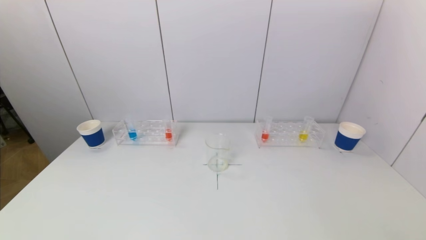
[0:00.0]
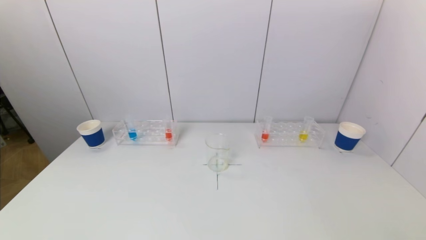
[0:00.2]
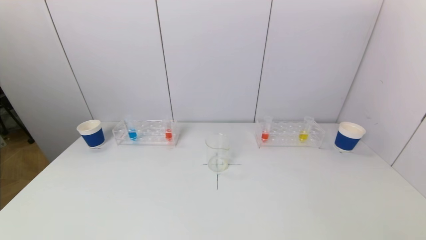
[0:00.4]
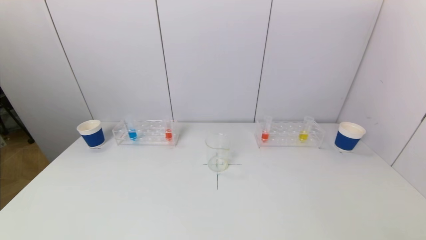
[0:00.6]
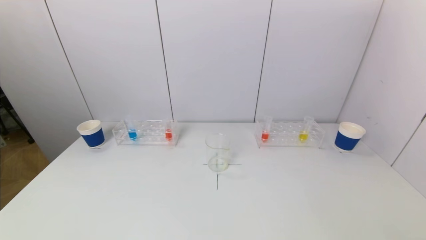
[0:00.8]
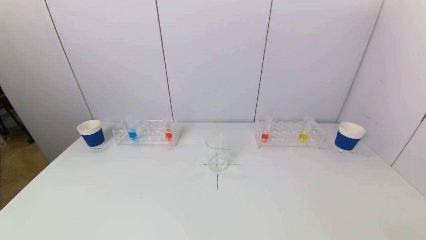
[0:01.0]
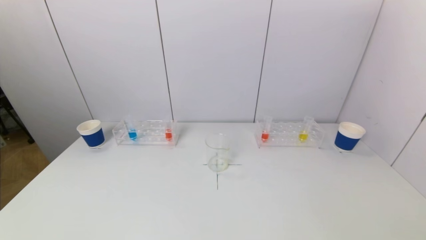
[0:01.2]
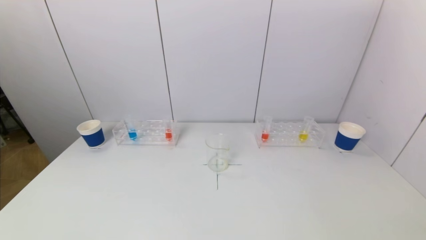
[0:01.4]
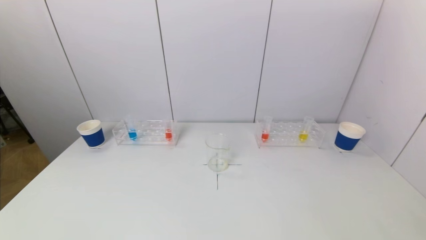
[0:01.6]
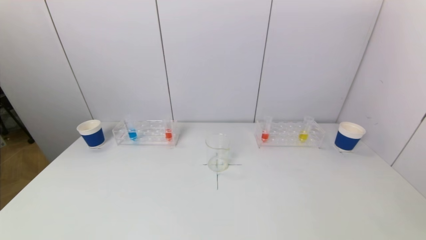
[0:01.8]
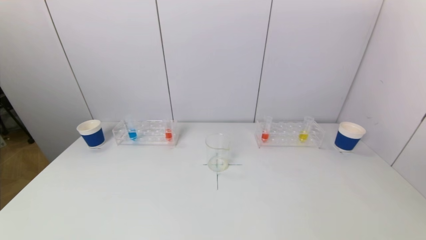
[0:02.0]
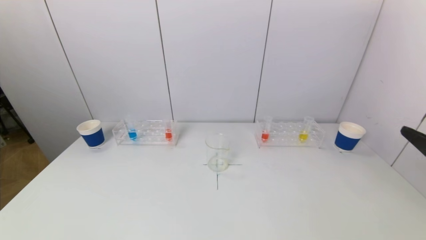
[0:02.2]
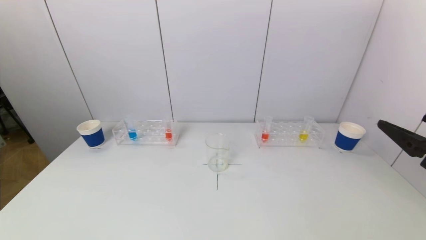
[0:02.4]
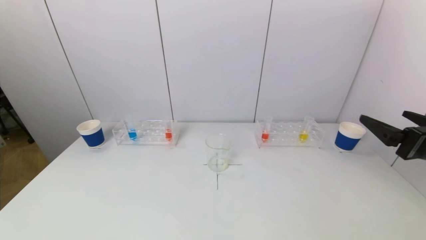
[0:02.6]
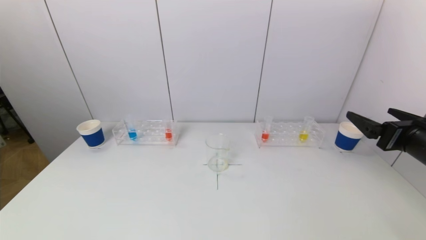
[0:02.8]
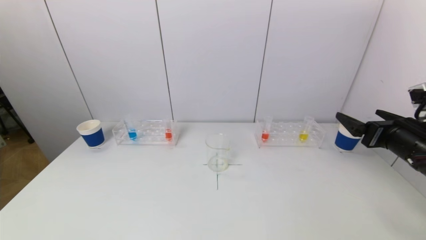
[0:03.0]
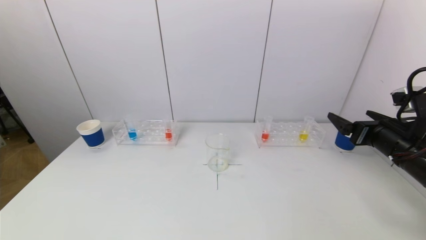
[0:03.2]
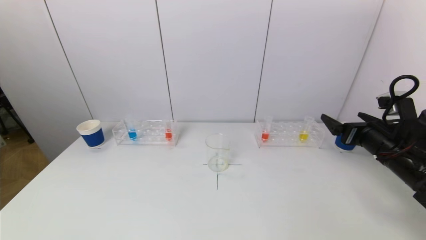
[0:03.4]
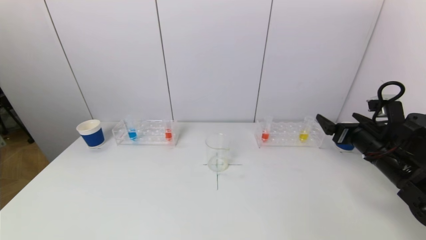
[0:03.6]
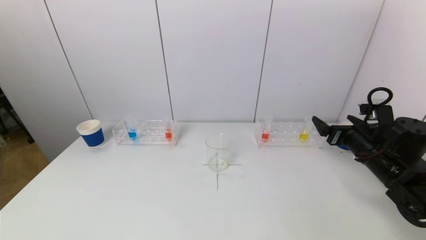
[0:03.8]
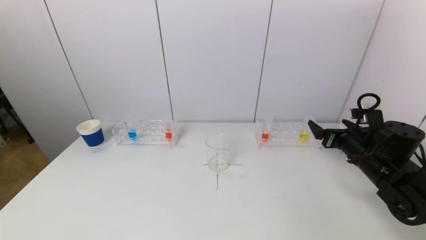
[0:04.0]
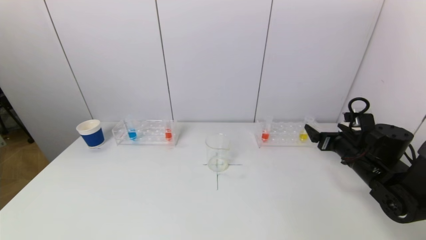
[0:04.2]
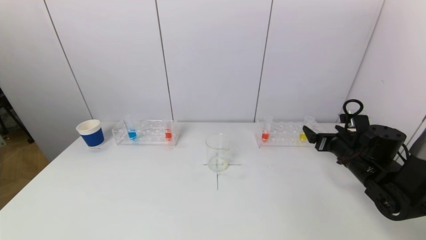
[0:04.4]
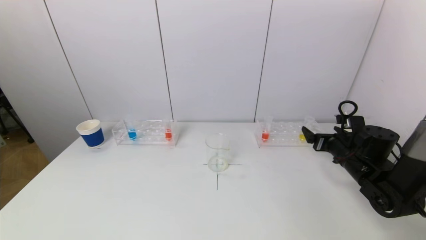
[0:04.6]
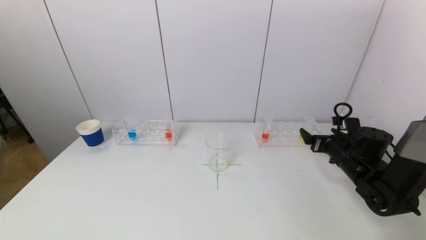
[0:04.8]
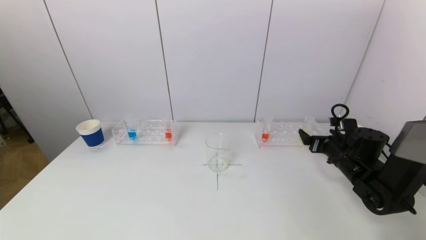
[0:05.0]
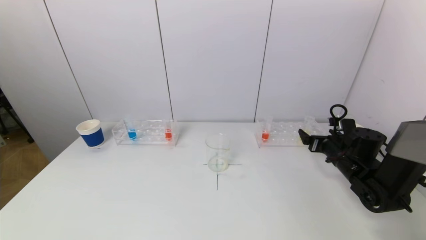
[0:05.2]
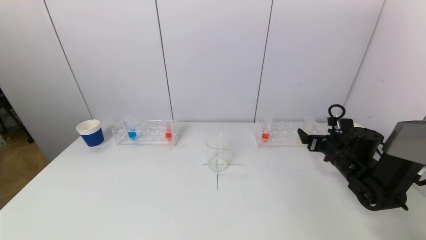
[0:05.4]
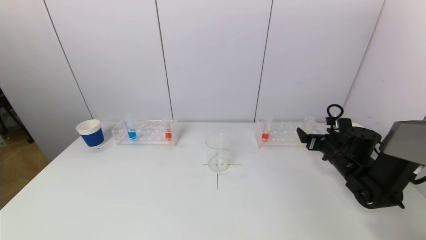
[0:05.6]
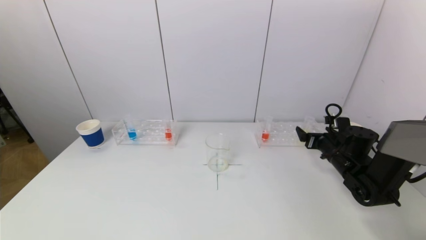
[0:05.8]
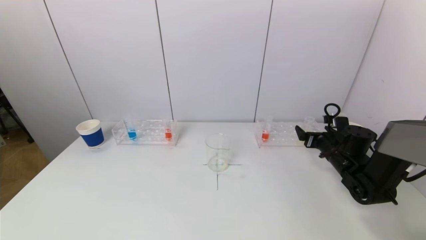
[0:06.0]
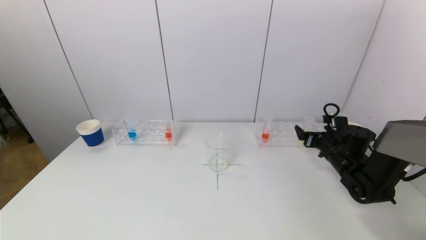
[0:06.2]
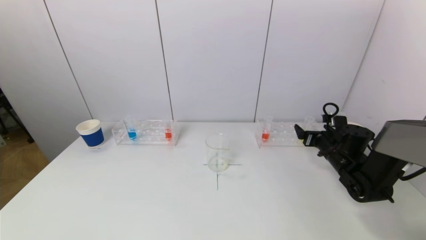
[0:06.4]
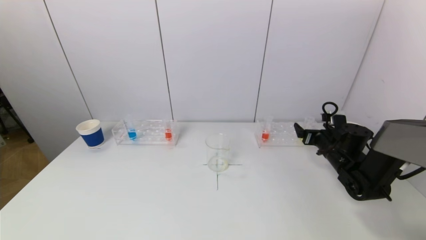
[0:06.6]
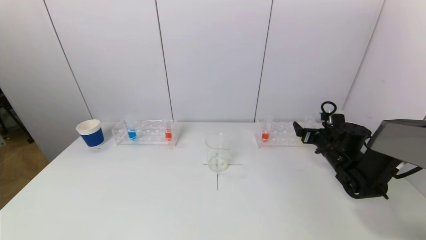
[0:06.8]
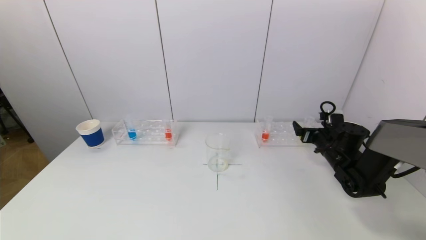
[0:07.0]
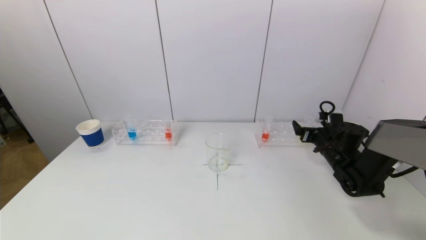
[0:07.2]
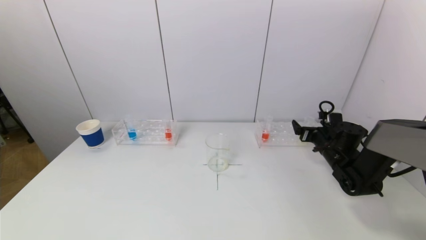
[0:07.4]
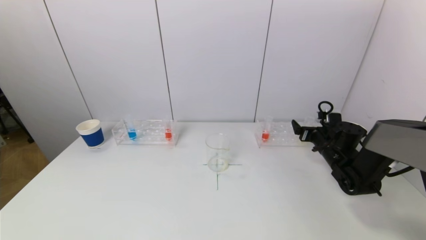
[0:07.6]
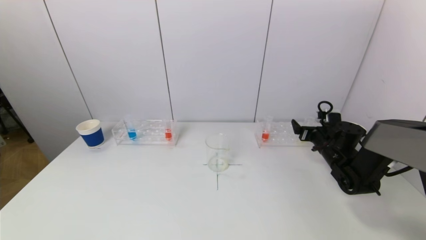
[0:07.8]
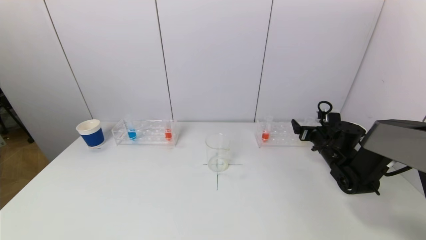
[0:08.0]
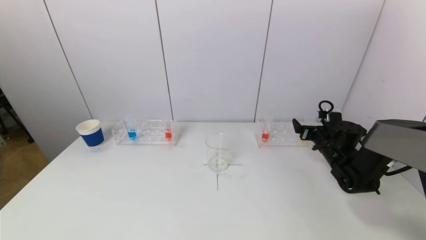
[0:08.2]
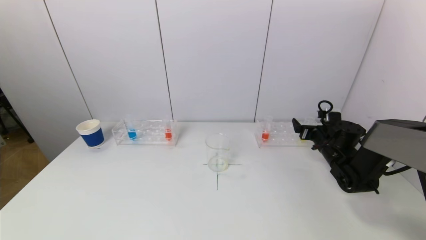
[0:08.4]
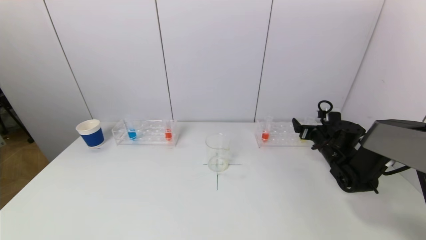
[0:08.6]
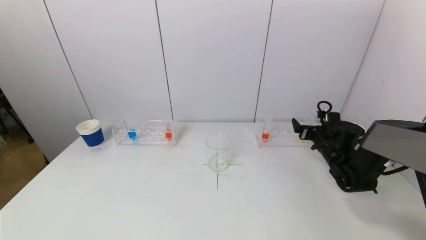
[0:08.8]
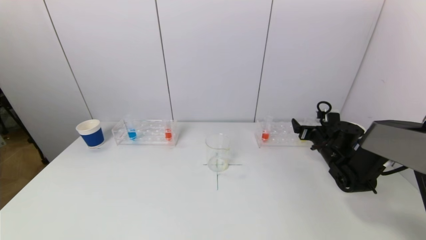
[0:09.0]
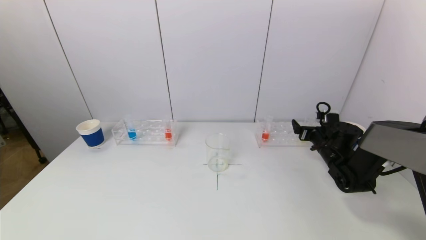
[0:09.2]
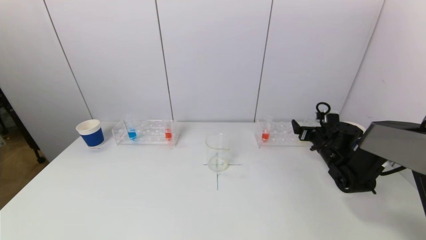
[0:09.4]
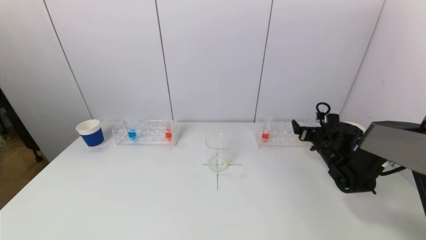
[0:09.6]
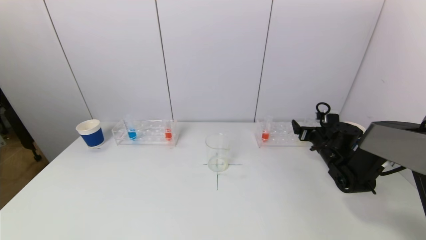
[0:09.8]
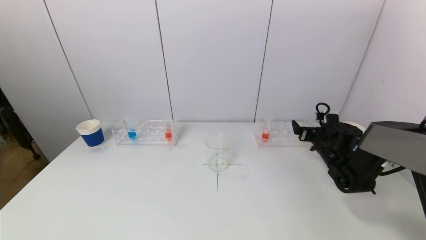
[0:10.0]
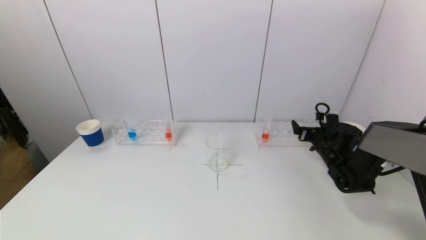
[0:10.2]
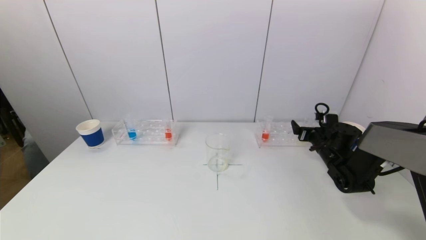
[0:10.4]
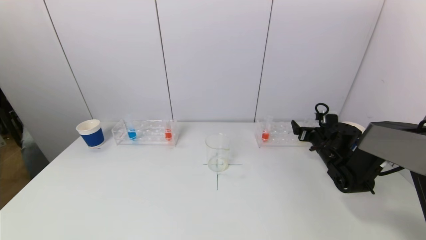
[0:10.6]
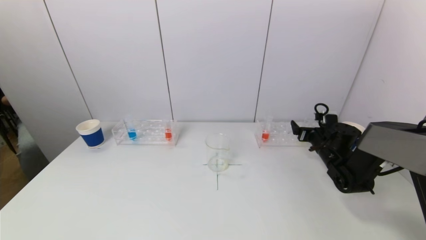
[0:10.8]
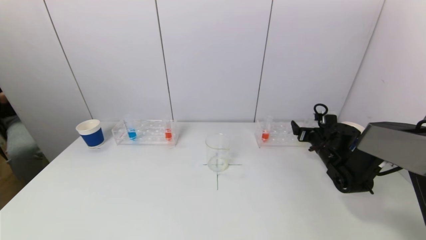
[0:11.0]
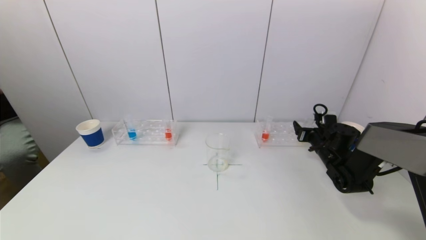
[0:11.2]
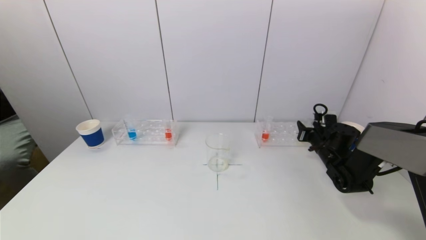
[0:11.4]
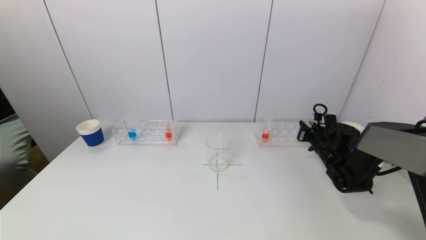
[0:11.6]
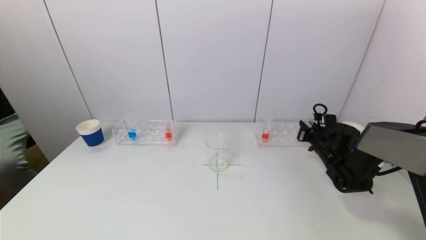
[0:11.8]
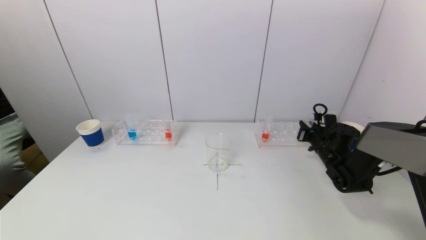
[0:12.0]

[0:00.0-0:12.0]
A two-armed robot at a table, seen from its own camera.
Task of the whole recording: pick up a test tube with pigment on left test tube rack and a test tube with pigment on right test tube rack by grippers and pour them into the beaker.
0:01.6 to 0:03.0: The right gripper moves forward, approximately 25 cm.
0:03.0 to 0:04.4: The right gripper moves downward and forward, approximately 15 cm.
0:04.4 to 0:06.0: The right gripper heads forward, covering approximately 5 cm.
0:06.0 to 0:07.6: The grippers make only small movements.
0:07.6 to 0:09.0: Neither gripper changes place.
0:09.0 to 0:10.4: Both grippers stay put.
0:10.4 to 0:12.0: The right gripper closes.

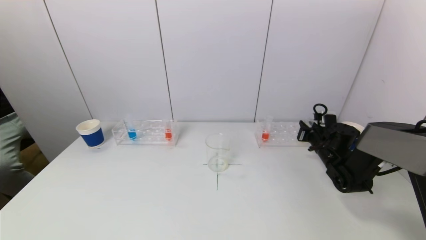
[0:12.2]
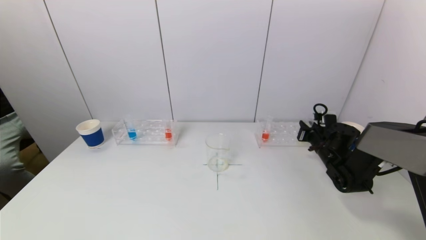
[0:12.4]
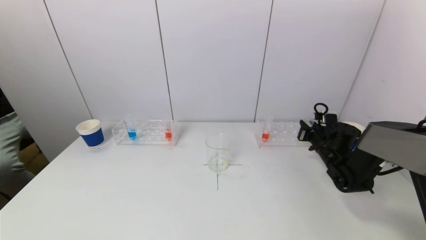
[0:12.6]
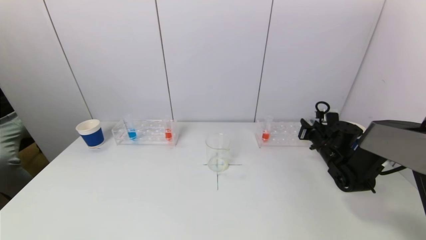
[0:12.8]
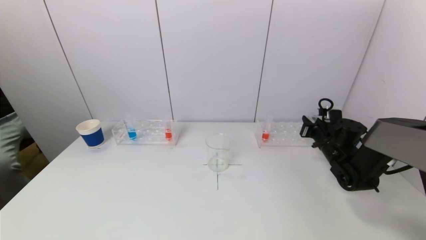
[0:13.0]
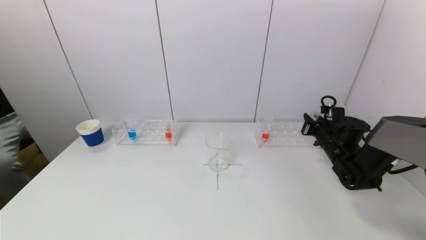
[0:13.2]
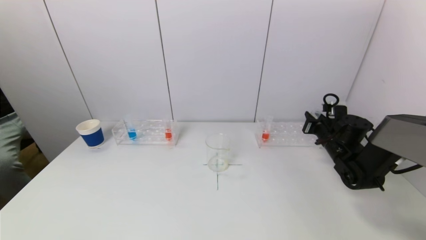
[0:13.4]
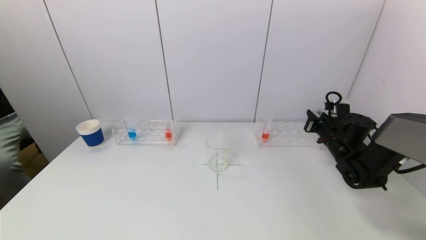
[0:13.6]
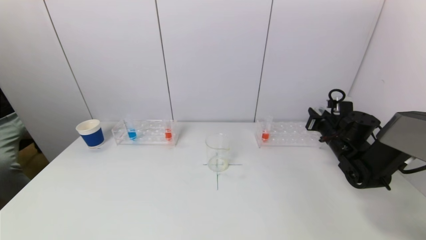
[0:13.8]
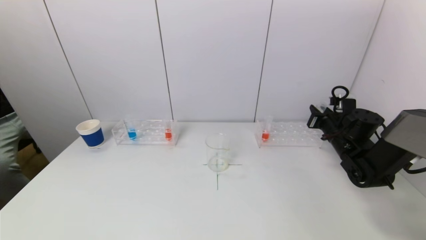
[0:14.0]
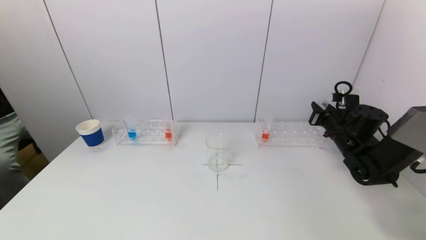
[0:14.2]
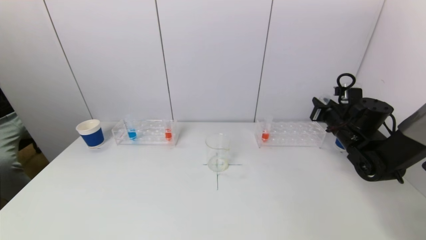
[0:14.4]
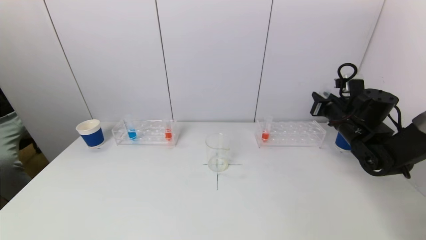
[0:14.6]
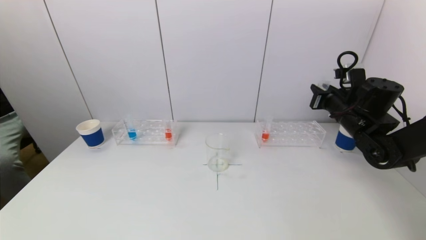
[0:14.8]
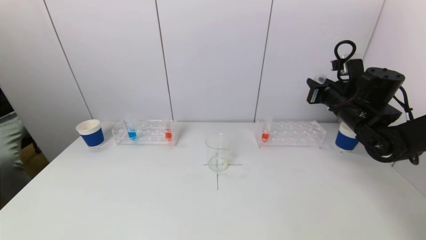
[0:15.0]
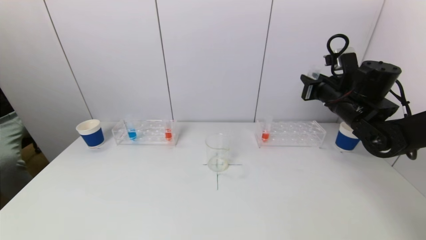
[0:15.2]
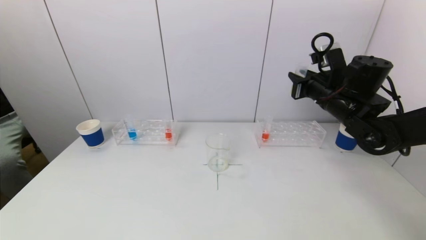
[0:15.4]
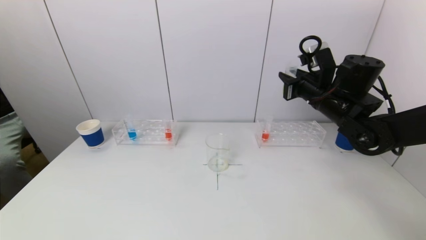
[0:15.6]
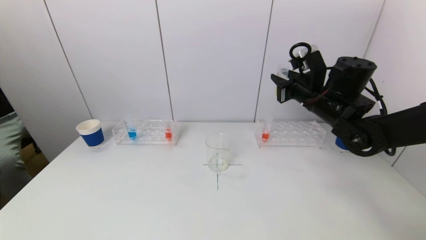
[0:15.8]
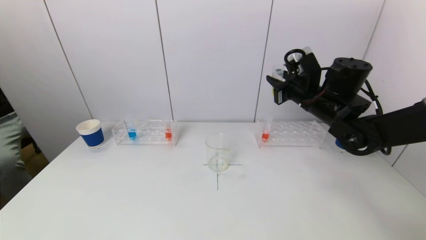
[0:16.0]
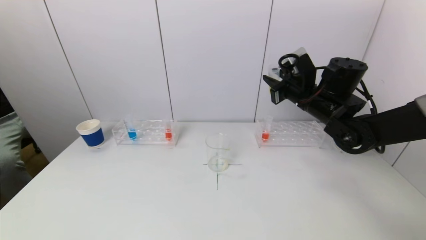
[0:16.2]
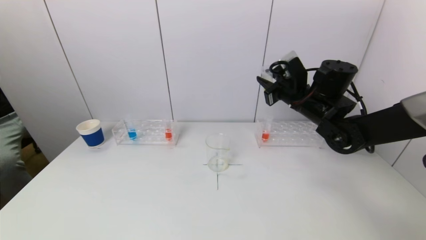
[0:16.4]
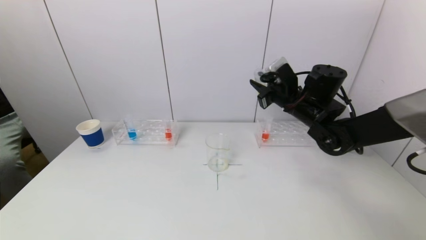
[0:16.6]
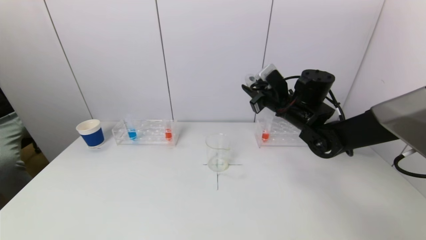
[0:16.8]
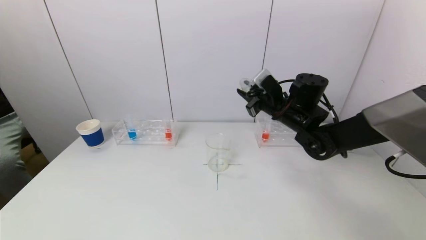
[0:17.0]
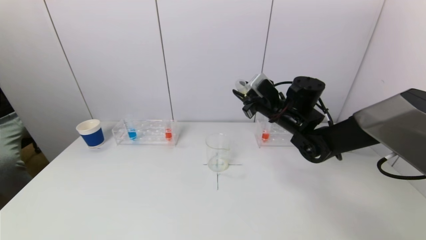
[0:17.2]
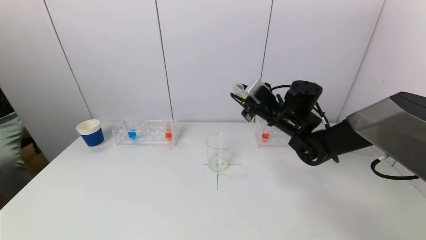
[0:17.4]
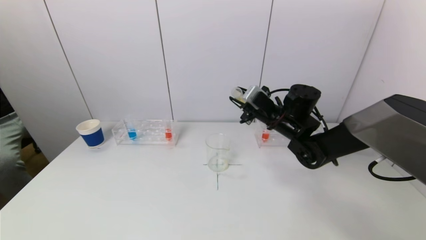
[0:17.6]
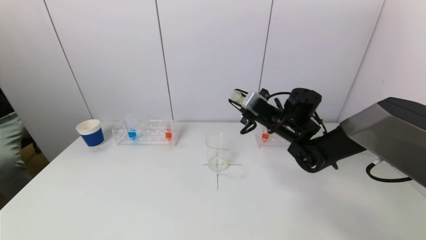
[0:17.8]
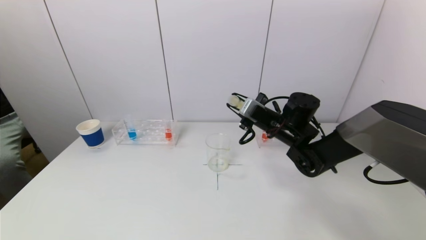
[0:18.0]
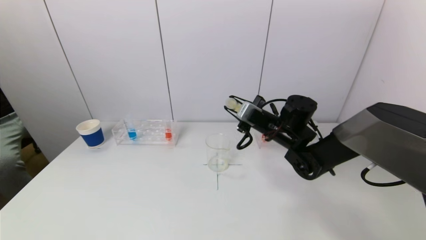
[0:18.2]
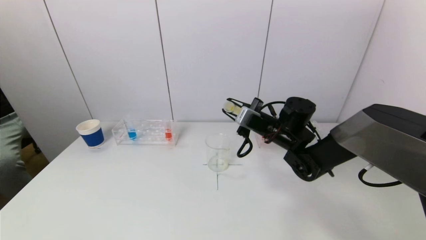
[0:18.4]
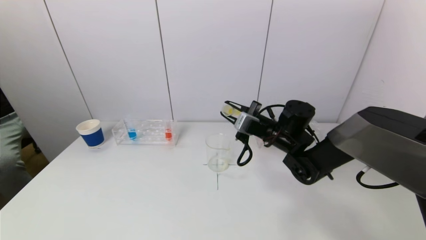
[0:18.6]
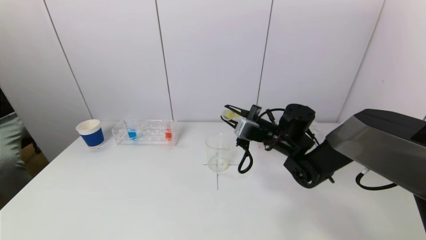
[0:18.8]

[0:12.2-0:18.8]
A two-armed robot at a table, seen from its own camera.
Task of the whole recording: pick up a test tube with pigment on left test tube rack and a test tube with pigment on right test tube rack by grippers and pour them into the beaker.
0:12.2 to 0:13.8: The right gripper is displaced upward by approximately 5 cm.
0:13.8 to 0:15.4: The right gripper is displaced upward and to the left by approximately 15 cm.
0:15.4 to 0:17.2: The right gripper shifts roughly 10 cm to the left.
0:17.2 to 0:18.8: The right gripper goes some 5 cm downward.
